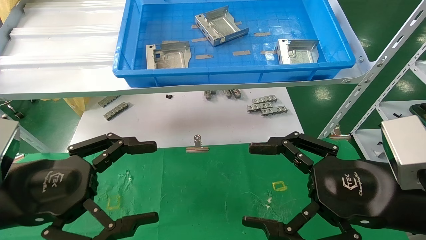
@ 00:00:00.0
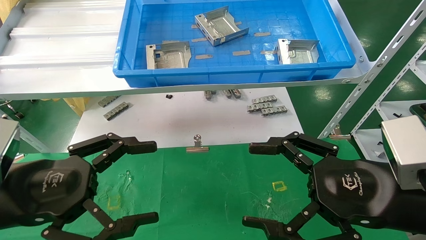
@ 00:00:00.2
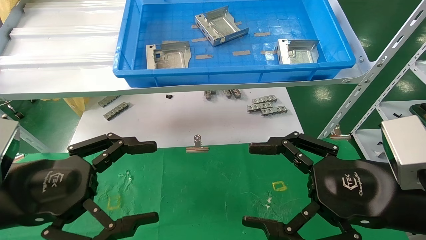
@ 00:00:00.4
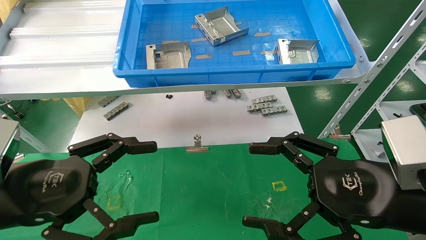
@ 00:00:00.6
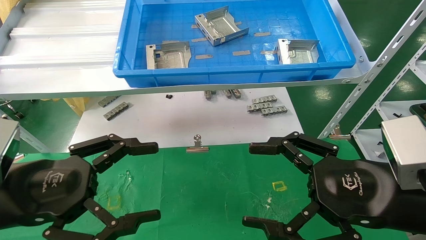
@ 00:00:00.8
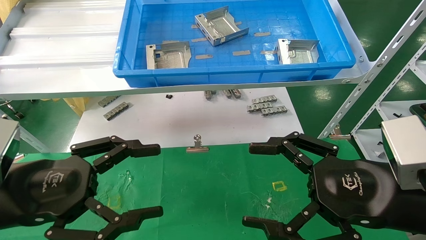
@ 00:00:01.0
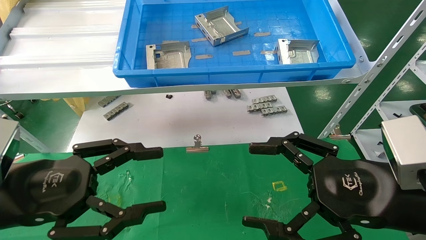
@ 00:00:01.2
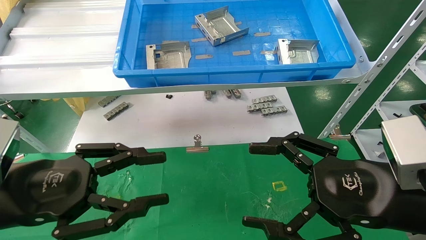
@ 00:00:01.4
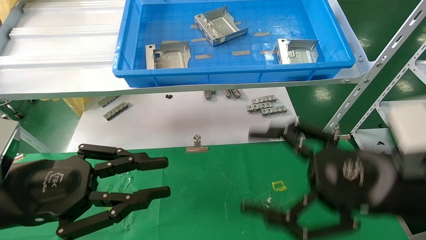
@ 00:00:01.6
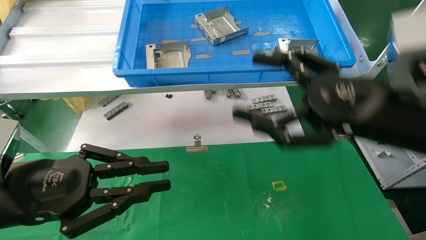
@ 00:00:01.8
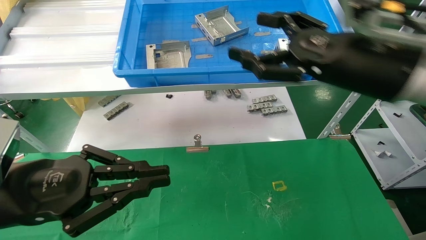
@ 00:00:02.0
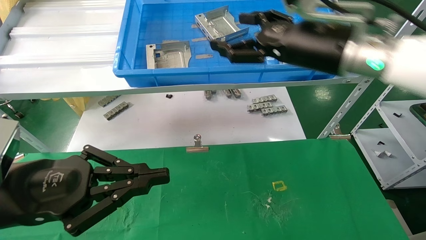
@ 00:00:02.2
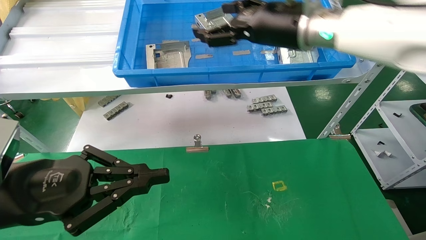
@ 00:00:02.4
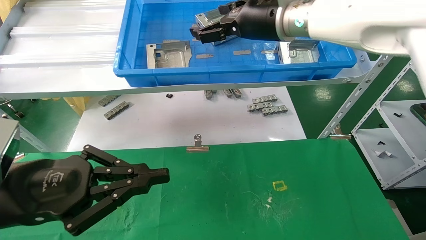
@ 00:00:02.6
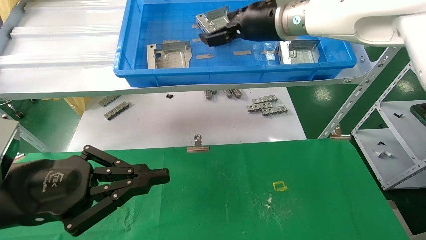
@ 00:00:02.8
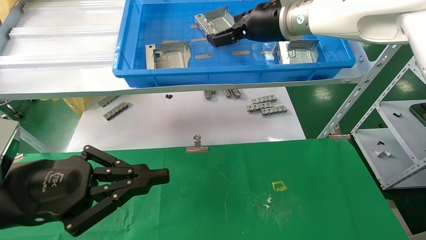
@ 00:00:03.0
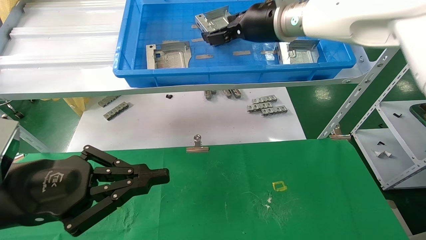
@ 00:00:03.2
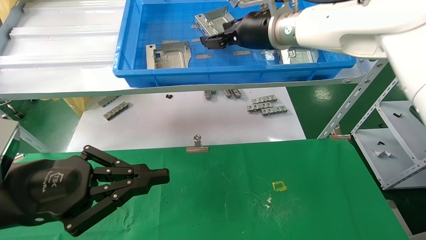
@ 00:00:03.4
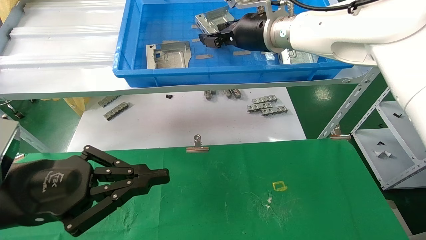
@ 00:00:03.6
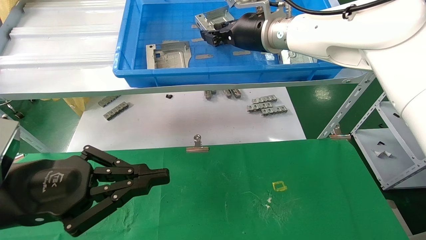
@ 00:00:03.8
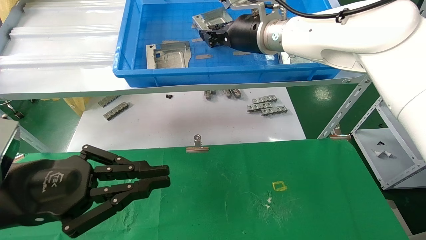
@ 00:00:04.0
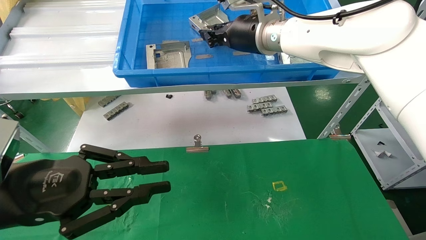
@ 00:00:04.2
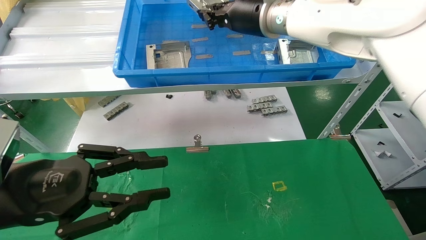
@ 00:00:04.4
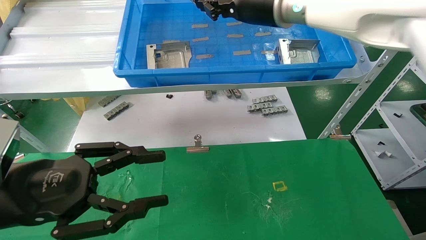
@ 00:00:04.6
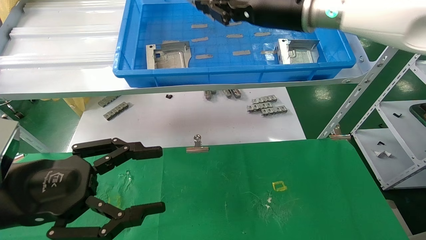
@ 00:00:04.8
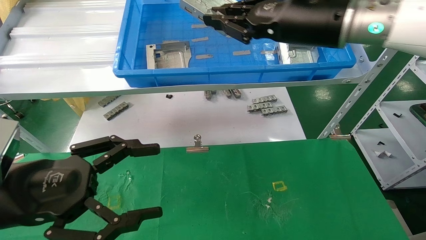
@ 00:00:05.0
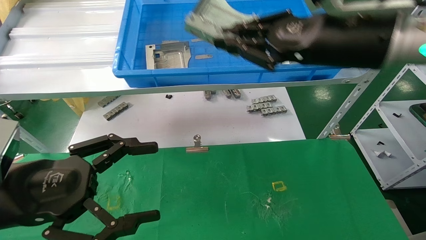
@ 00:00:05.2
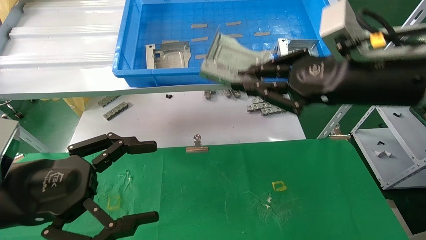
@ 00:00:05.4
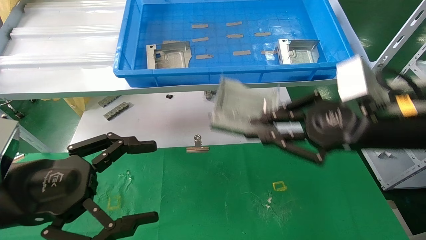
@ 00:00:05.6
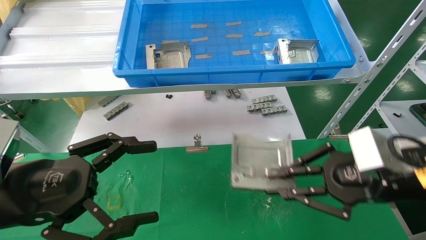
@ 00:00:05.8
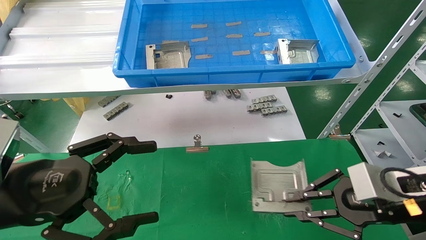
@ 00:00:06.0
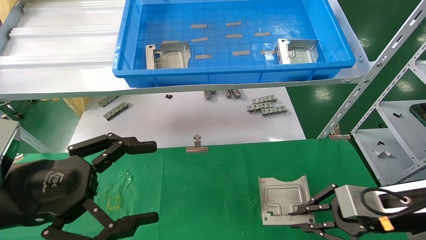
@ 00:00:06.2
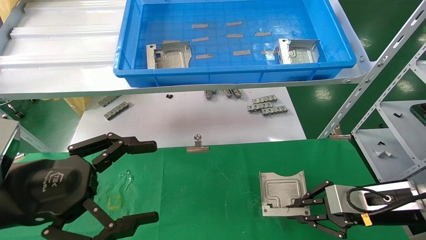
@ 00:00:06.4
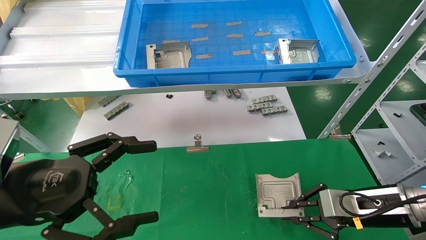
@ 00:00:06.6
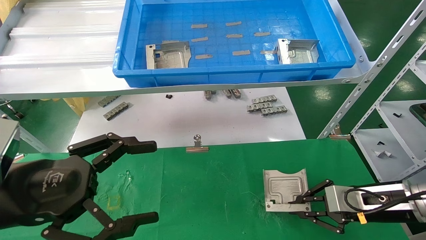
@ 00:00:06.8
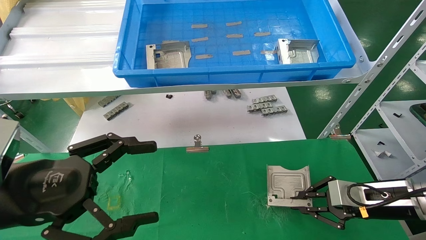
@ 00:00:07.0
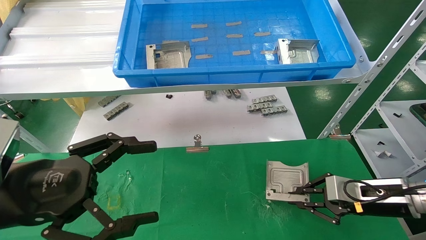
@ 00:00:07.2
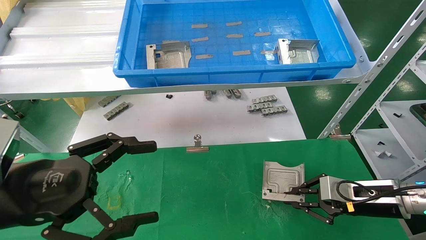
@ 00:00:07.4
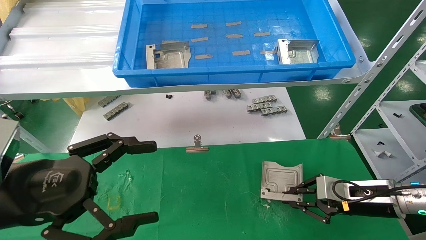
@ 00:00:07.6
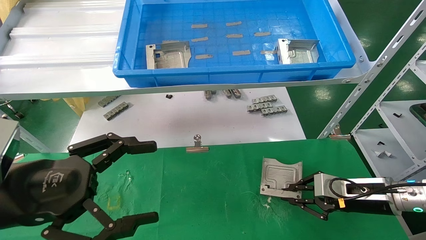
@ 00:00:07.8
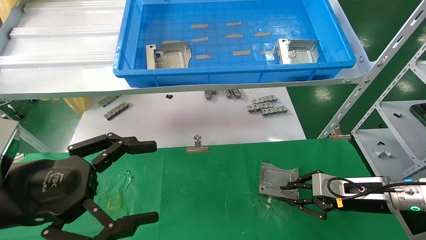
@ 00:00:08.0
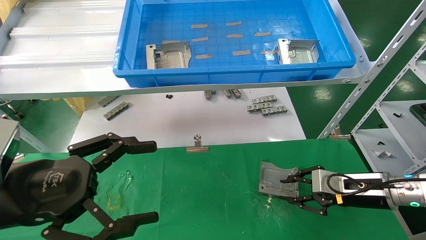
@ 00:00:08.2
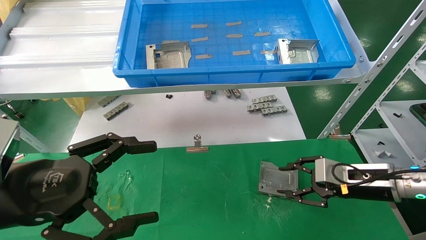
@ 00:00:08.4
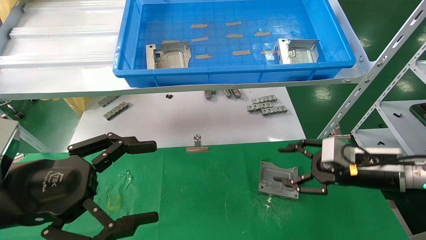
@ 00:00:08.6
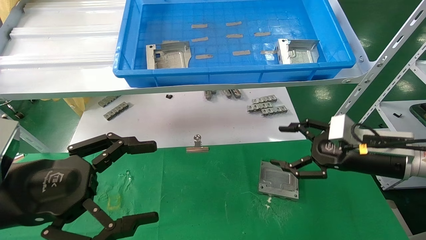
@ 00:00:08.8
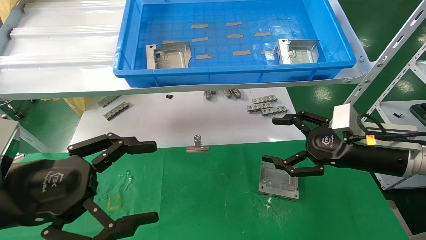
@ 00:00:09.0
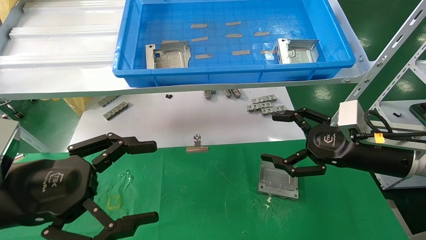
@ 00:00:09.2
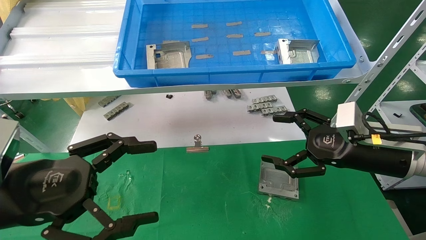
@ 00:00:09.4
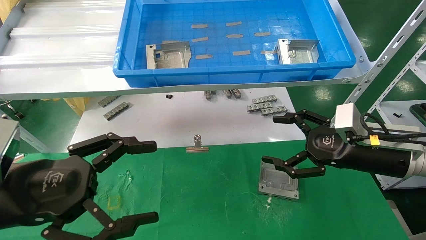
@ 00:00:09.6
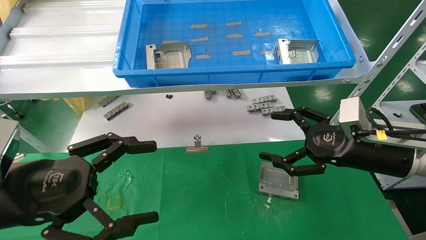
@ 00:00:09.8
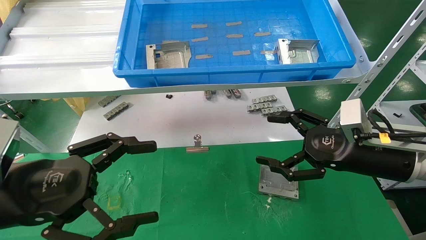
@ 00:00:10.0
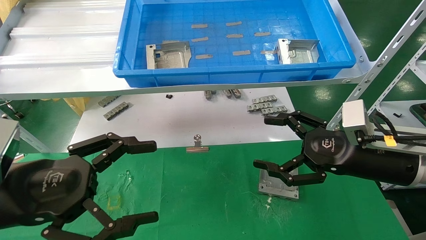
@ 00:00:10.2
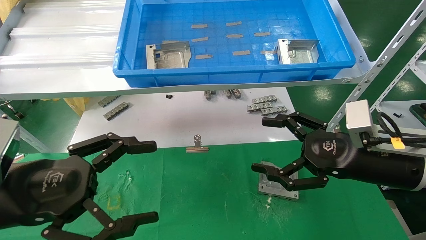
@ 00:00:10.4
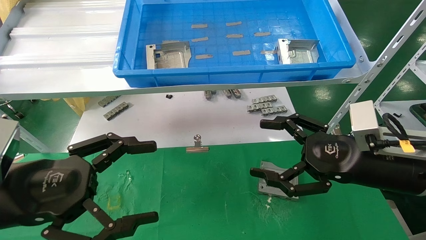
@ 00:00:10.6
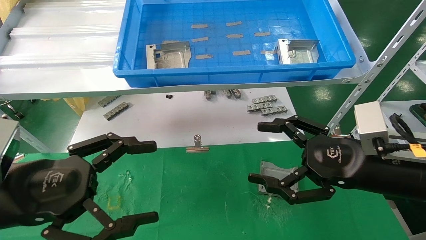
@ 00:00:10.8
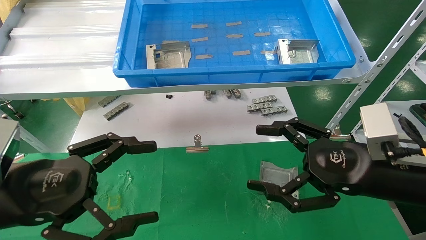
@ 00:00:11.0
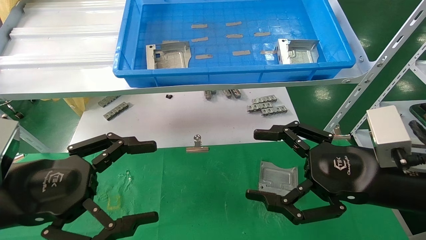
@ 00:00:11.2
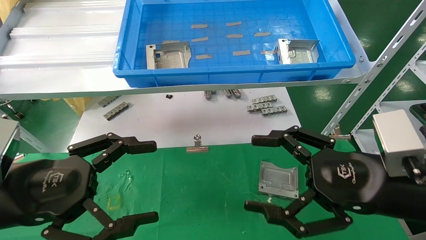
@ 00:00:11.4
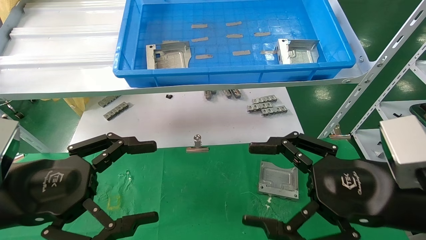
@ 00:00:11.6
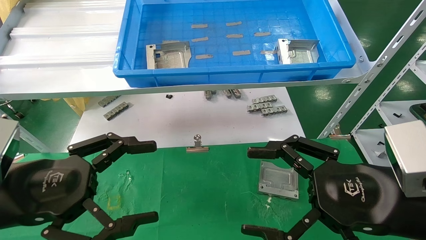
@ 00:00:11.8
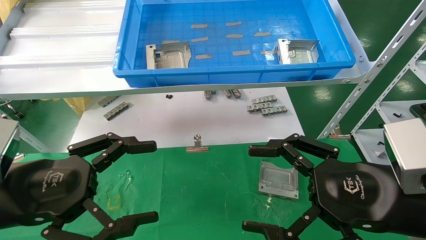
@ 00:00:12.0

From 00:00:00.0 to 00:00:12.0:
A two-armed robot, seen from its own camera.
Task of the whole recording: use the mechanical arm to pick up the parts and place them on the table.
Step, from 00:00:02.0 to 00:00:04.6: Pick up the hard drive bracket from the feeding area.
Step, from 00:00:04.8 to 00:00:08.6: Place the hard drive bracket into the box.
From 00:00:00.0 to 00:00:01.6: The left gripper closes up.
From 00:00:01.6 to 00:00:03.0: The right gripper travels forward, upward and to the left by roughly 30 cm, while the left gripper closes up.
From 00:00:03.0 to 00:00:04.4: The right gripper closes its fingers.
From 00:00:04.4 to 00:00:06.0: The left gripper opens, while the right gripper goes approximately 35 cm downward, to the right and backward.
From 00:00:06.0 to 00:00:07.6: The right gripper moves downward and forward, roughly 15 cm.
From 00:00:07.6 to 00:00:09.0: The right gripper shifts about 10 cm upward, and opens.
From 00:00:09.0 to 00:00:10.4: The right gripper moves about 5 cm.
From 00:00:10.4 to 00:00:12.0: The right gripper moves backward, about 10 cm.
